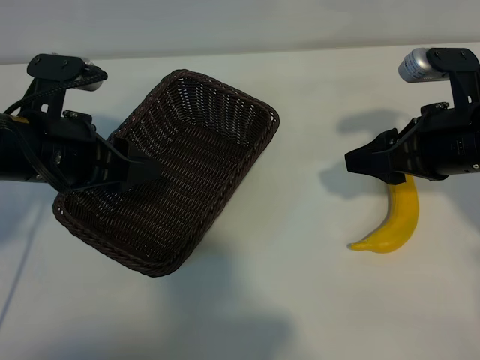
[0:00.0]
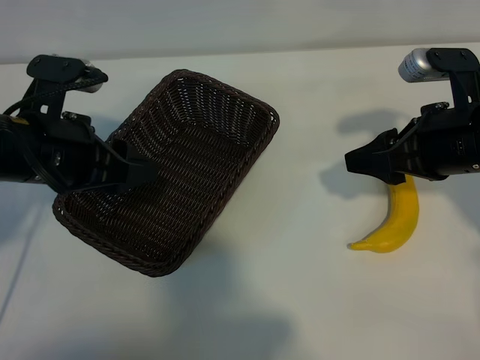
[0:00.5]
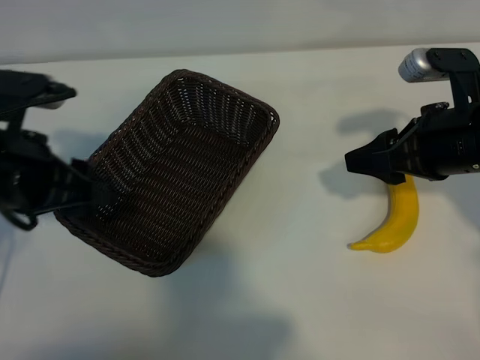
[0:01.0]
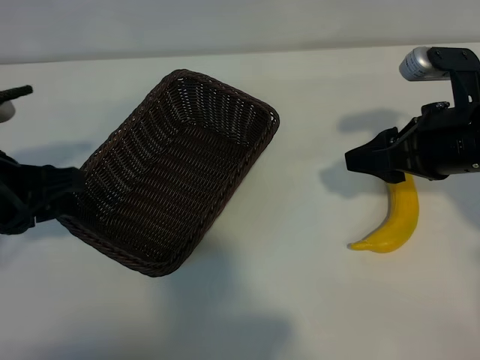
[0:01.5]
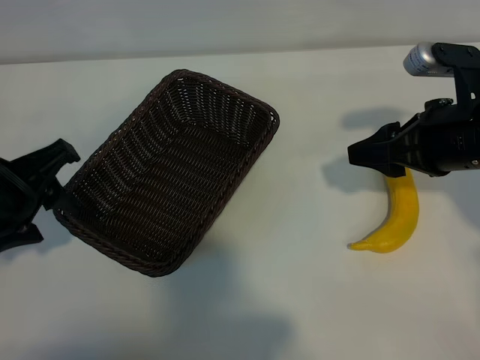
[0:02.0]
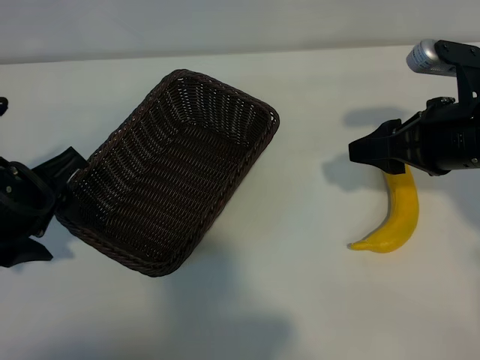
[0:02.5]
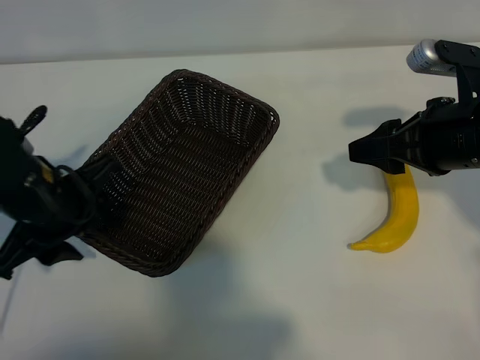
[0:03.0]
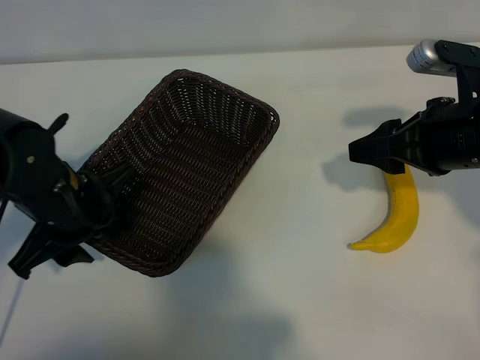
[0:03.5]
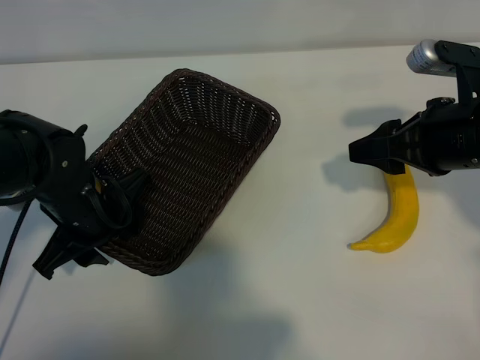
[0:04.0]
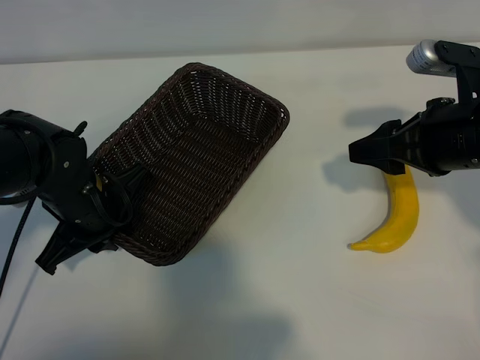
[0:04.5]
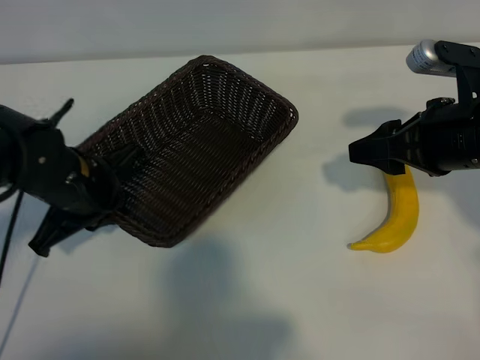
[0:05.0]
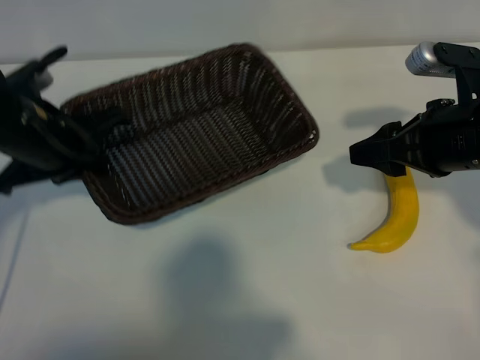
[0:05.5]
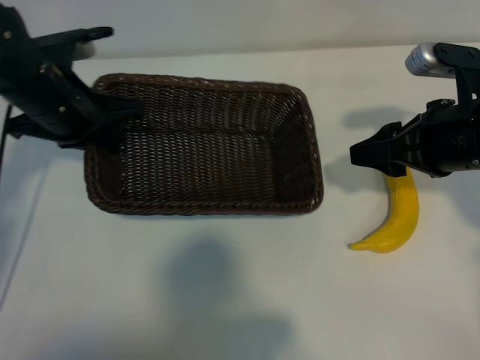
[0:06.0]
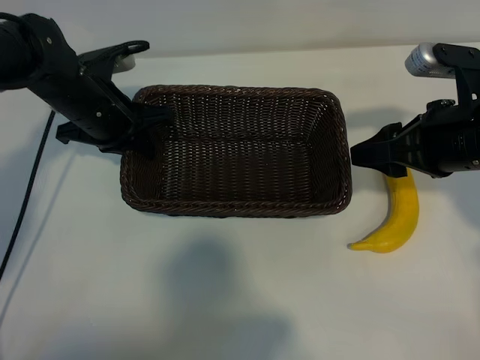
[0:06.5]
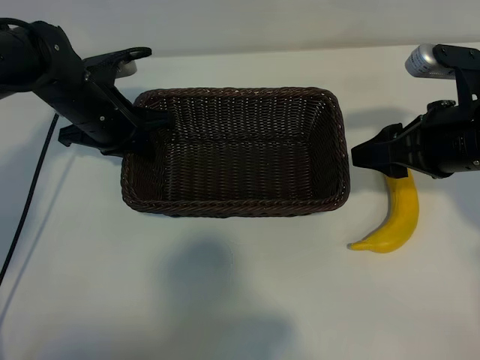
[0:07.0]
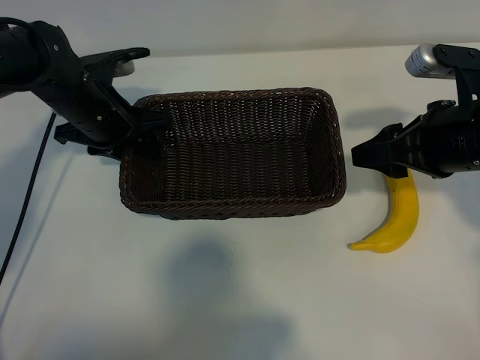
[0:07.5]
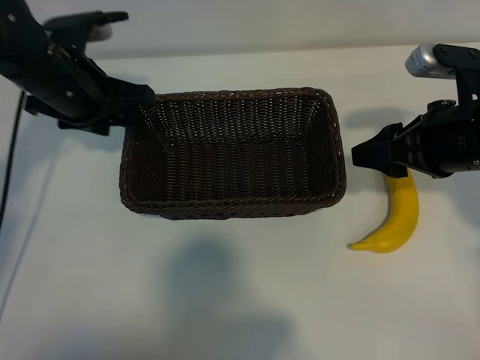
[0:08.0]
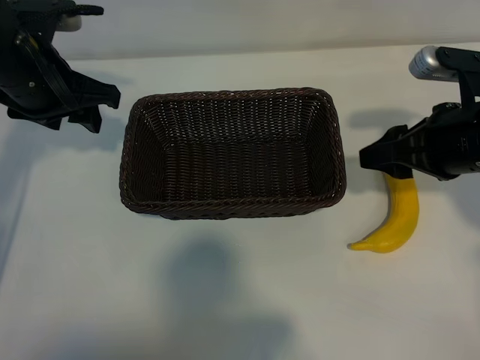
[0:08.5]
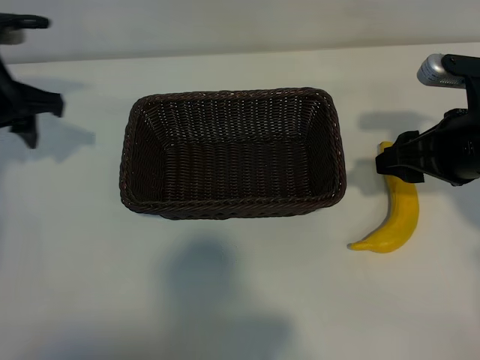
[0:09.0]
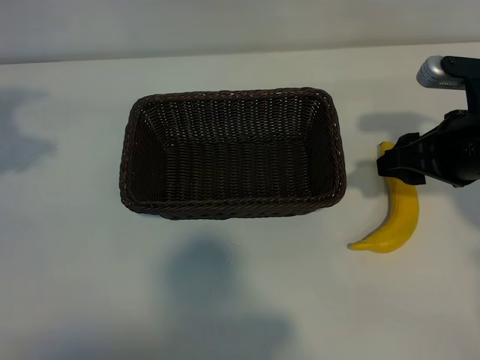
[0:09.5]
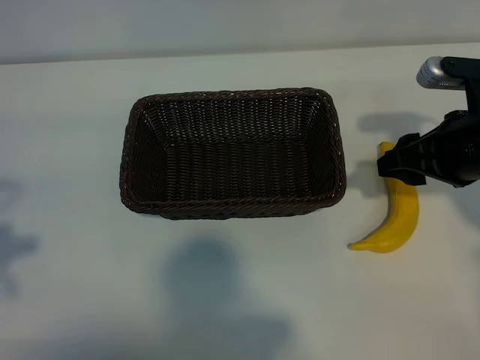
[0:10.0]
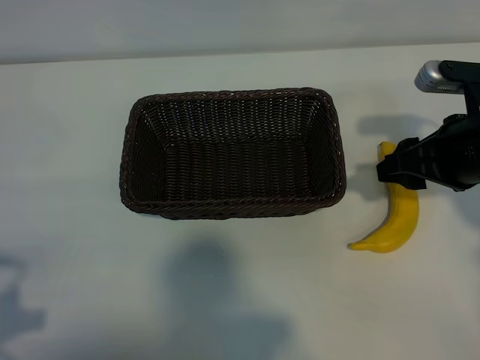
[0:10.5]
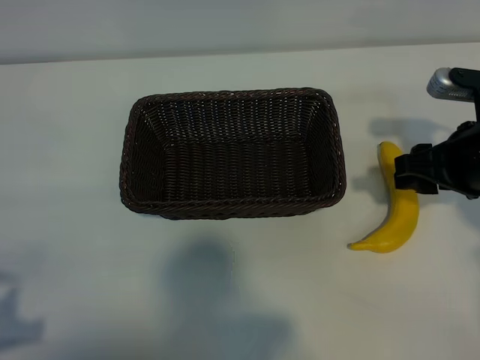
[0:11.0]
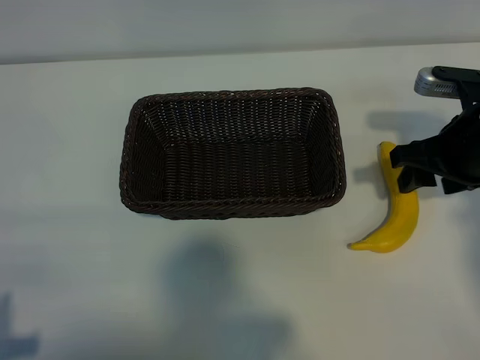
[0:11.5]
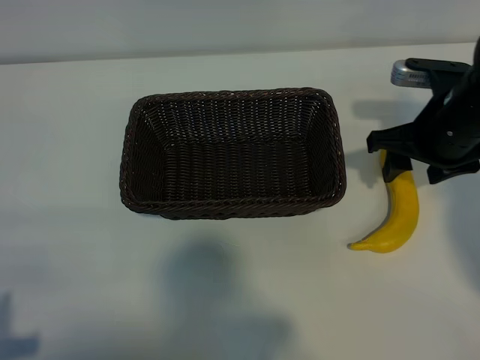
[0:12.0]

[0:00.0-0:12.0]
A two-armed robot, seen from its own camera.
Task of the whole recording: pick up the banana and put it into the basket.
Step, 0:00.0 to 0:04.0: Grasp the basket with the left gripper.
Step, 0:04.5 to 0:08.0: Place the basket in the center of the table with the left gripper.

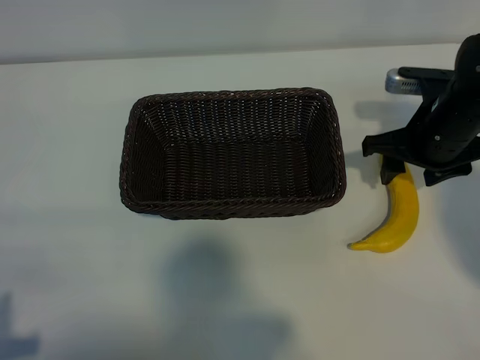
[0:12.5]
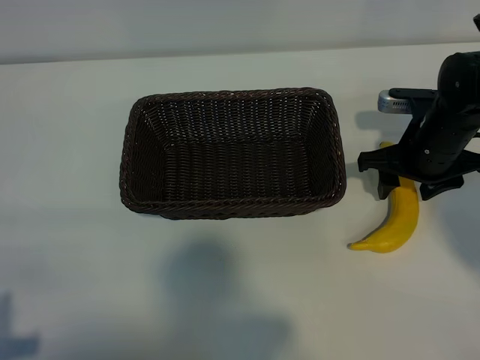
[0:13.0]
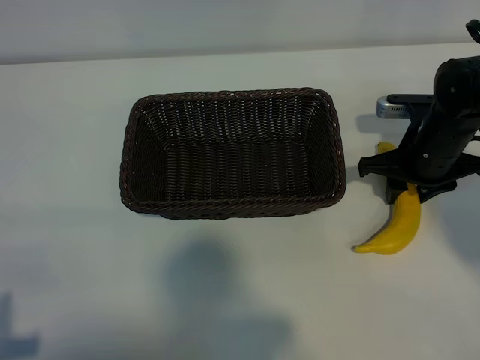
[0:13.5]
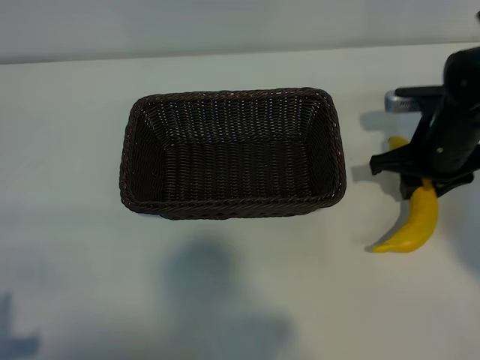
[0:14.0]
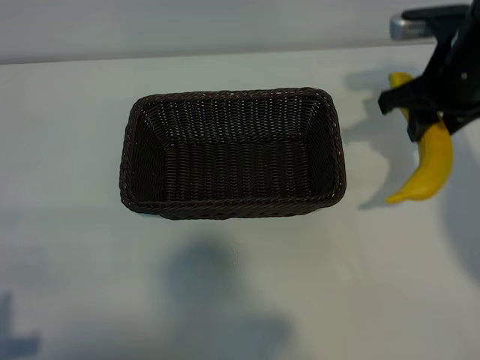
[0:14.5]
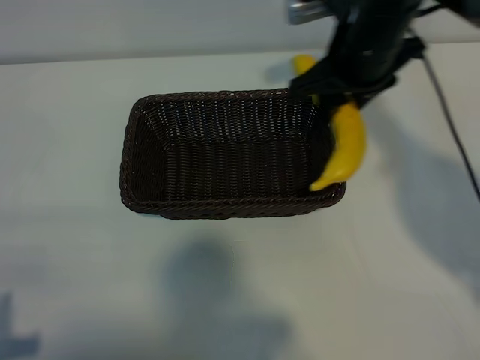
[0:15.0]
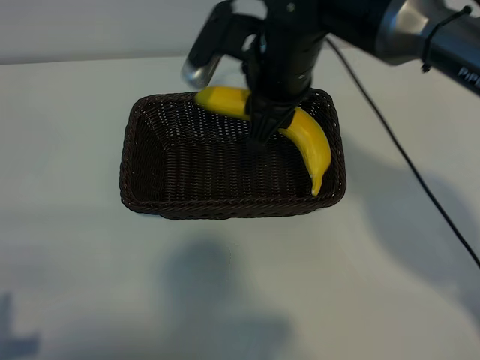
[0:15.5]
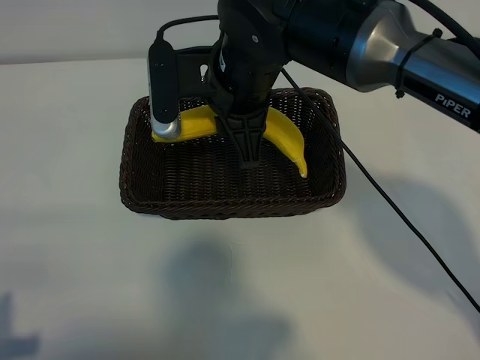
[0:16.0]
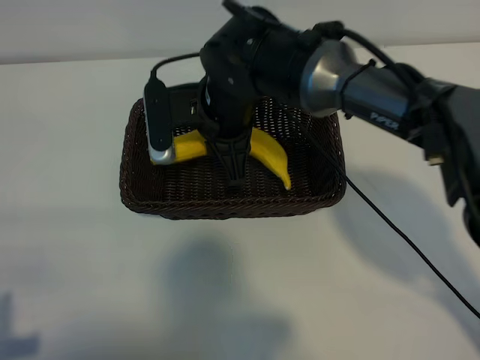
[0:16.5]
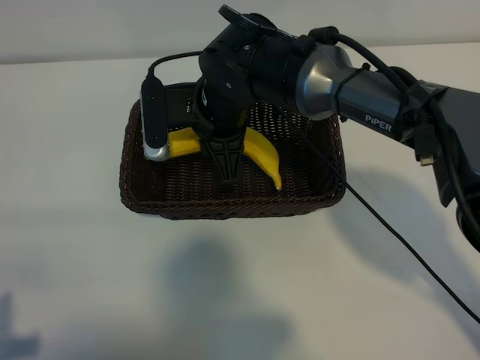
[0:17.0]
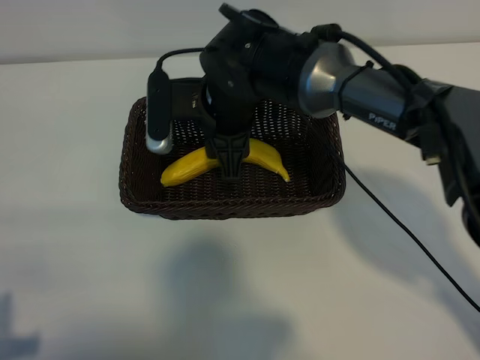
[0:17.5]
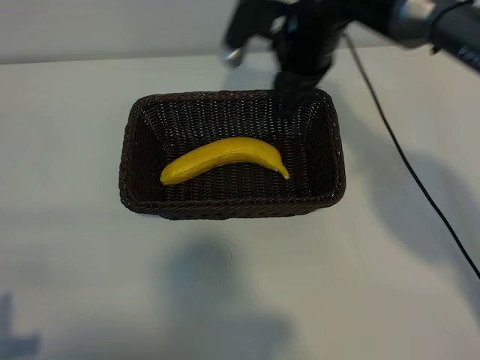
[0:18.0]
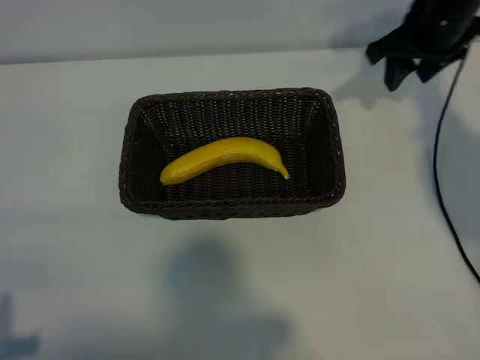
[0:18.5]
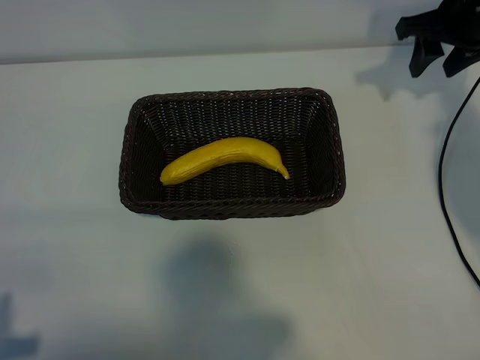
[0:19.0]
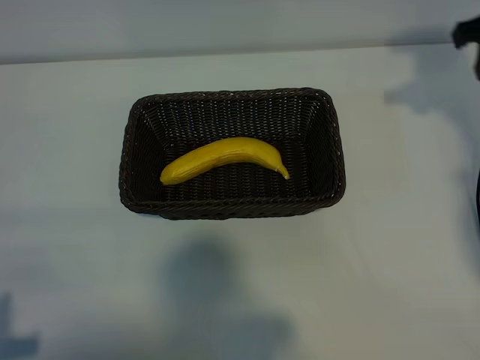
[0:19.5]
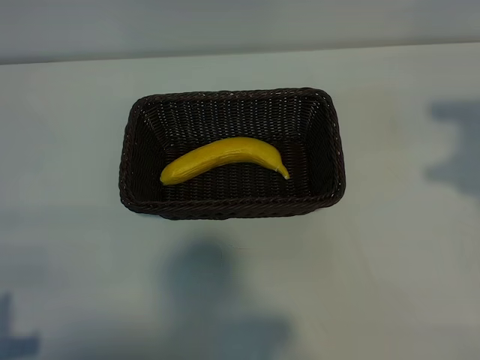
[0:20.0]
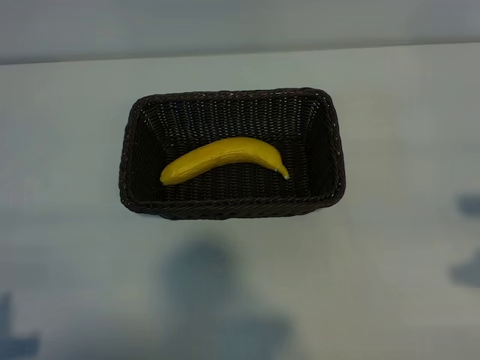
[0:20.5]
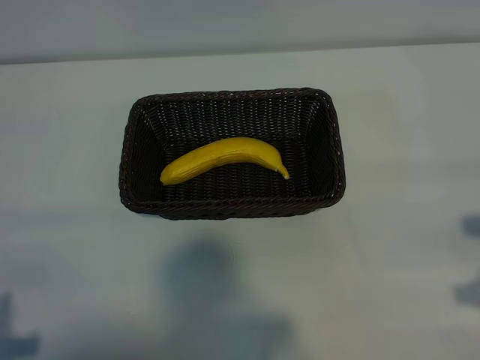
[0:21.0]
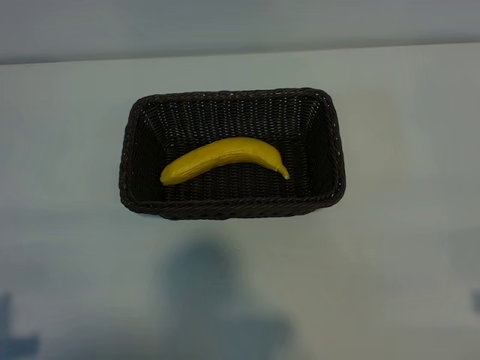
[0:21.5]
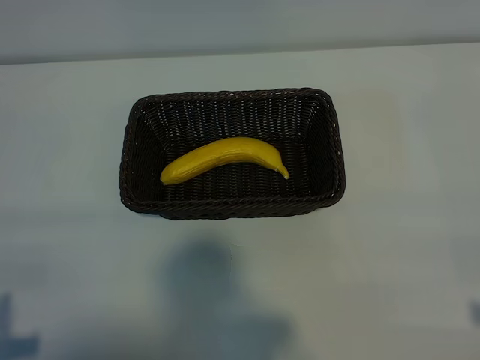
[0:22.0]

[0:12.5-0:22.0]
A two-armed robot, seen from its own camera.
Task of the whole recording: pick up the banana and put it into the basket.
Step, 0:14.0 to 0:17.5: Place the banana in the basket with right gripper.
